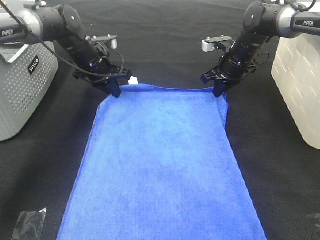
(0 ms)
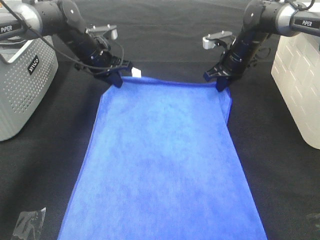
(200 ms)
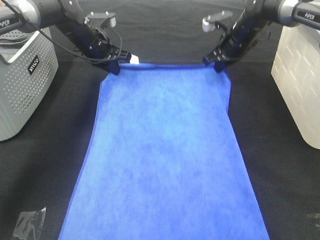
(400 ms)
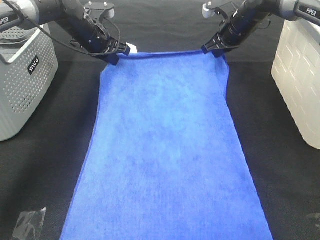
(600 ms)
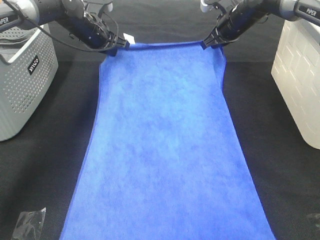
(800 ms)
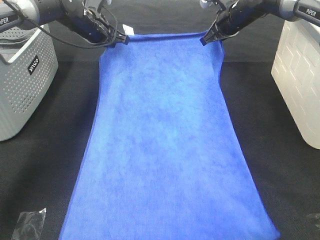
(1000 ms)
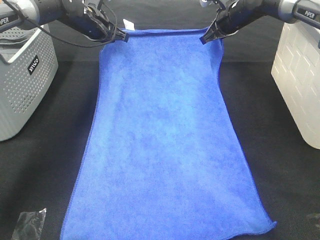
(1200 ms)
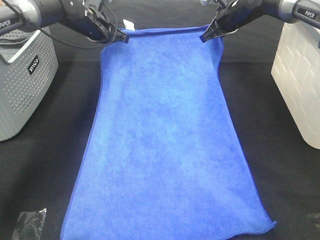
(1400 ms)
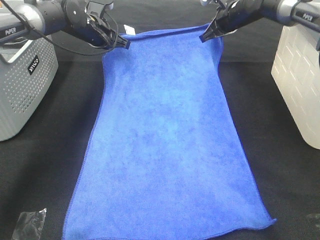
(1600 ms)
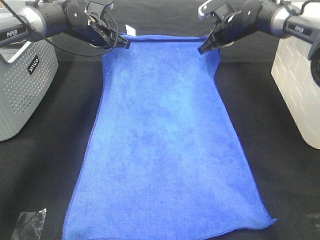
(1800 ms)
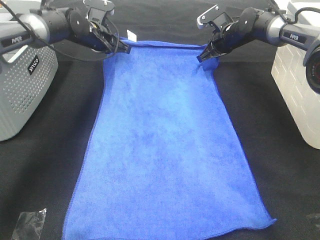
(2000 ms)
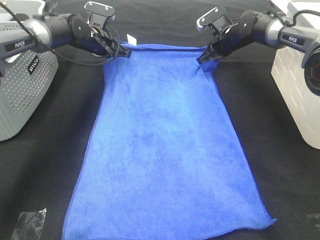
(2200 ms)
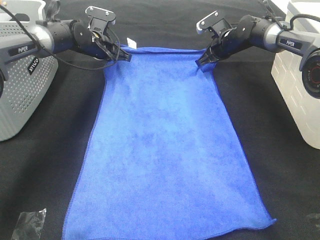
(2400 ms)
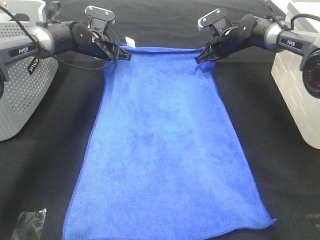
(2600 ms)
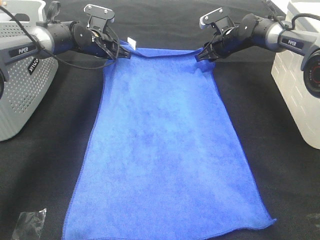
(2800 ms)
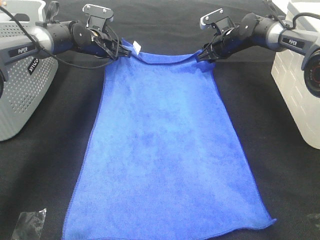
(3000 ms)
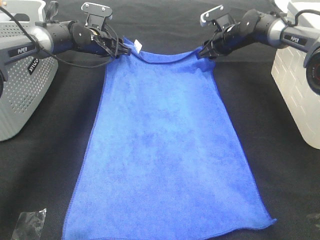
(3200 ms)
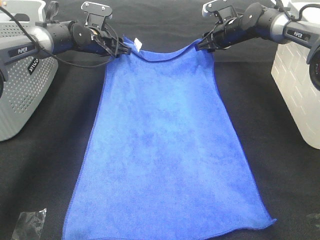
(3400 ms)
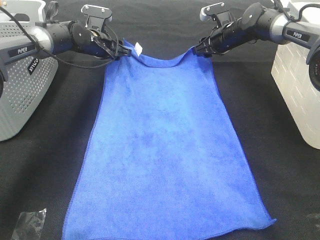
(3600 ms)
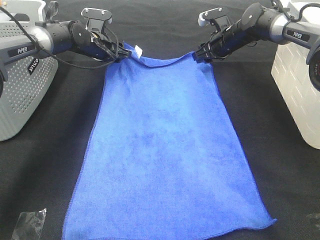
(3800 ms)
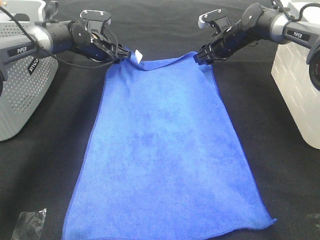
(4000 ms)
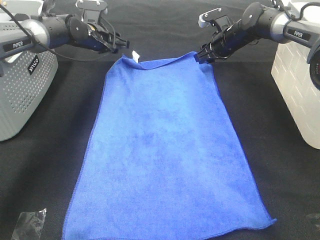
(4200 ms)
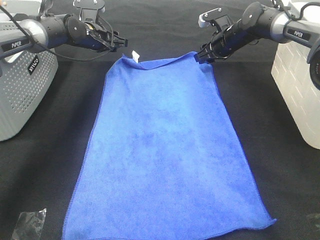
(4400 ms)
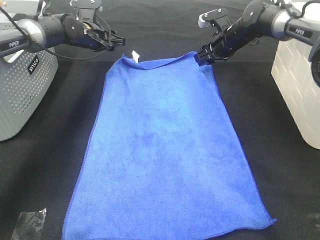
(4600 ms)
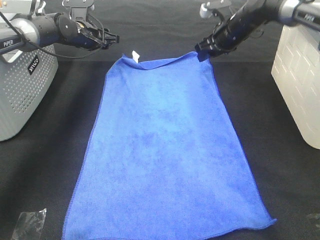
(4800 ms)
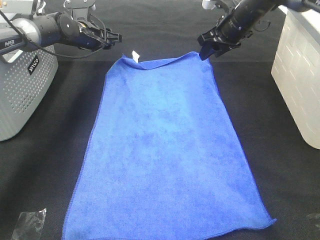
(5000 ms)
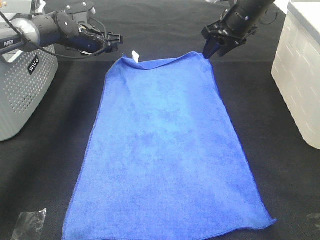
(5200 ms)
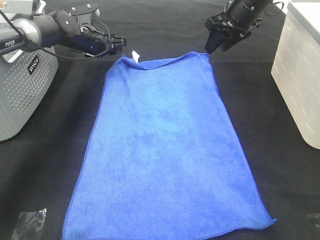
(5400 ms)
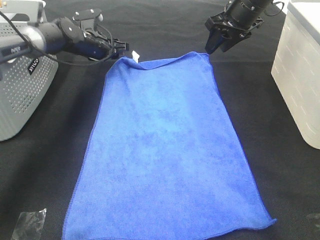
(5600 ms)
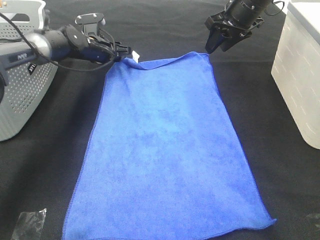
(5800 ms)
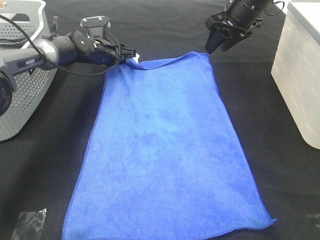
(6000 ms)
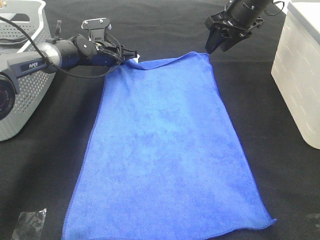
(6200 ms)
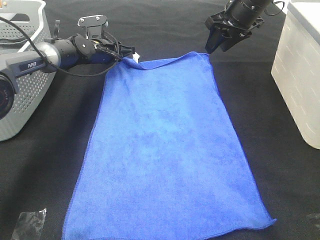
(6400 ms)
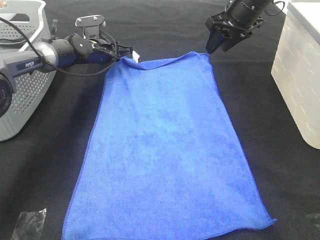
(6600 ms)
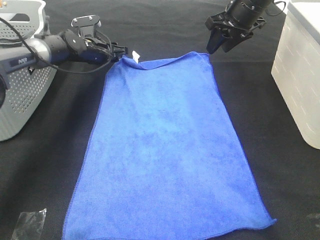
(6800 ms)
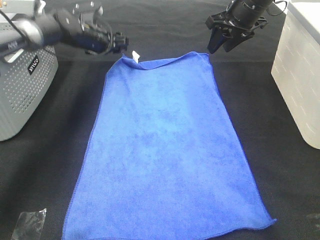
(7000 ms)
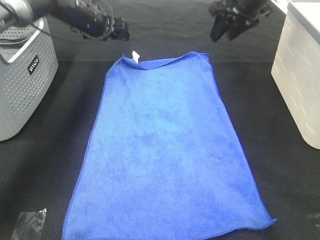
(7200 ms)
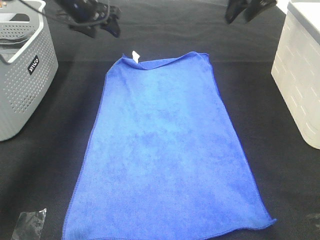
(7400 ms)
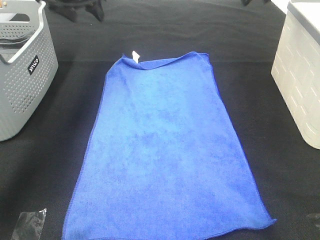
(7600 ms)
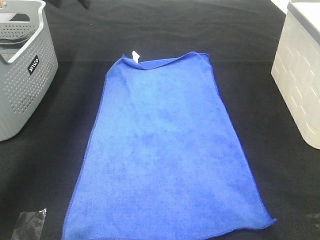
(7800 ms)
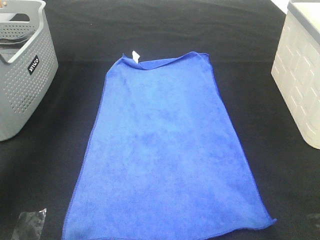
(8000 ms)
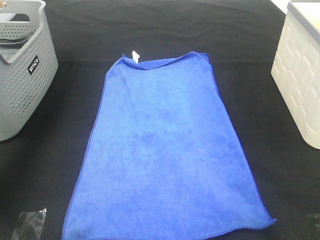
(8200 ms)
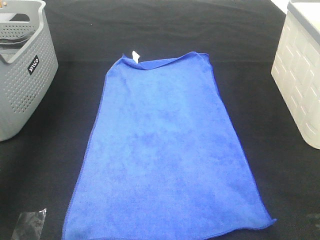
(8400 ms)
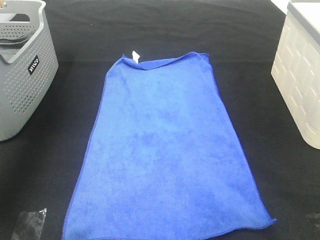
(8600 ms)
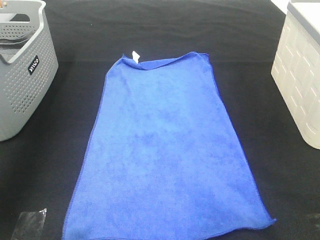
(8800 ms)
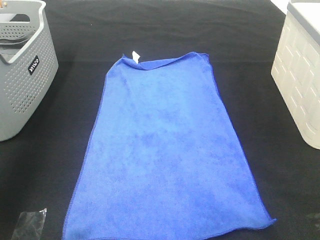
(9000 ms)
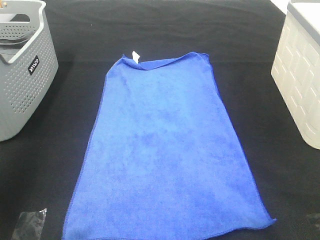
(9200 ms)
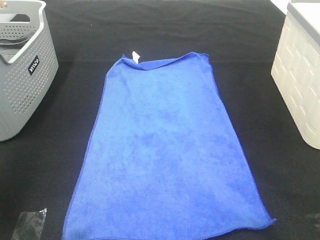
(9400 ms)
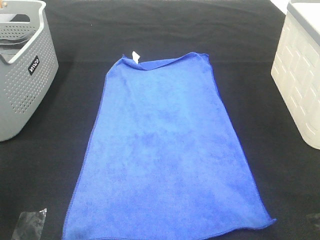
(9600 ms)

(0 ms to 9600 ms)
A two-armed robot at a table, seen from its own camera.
Task of the whole recording: Remove the towel and place it.
0 ms - 1600 ms: The left gripper travels forward by roughly 5 cm, while the right gripper heads upward and forward, covering approximately 10 cm.
1600 ms - 3200 ms: The left gripper opens up, while the right gripper moves downward, approximately 5 cm, and opens up.
3200 ms - 4800 ms: The right gripper moves approximately 5 cm.
4800 ms - 6400 ms: The left gripper moves some 5 cm. Meanwhile the right gripper goes some 5 cm upward.
6400 ms - 8000 ms: The left gripper is displaced upward and to the left by about 30 cm. Meanwhile the right gripper travels upward and to the right by roughly 20 cm.
8000 ms - 9600 ms: Both grippers move backward, some 50 cm.

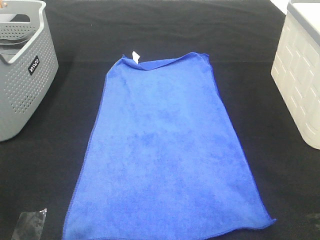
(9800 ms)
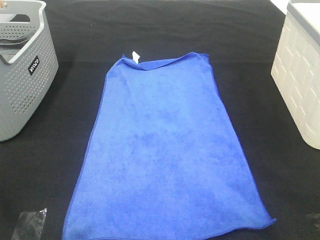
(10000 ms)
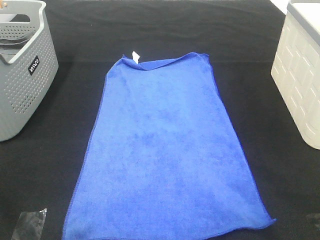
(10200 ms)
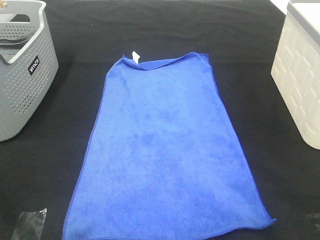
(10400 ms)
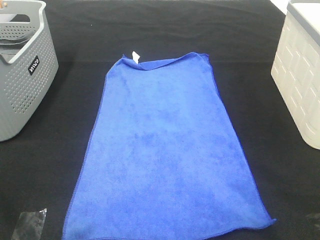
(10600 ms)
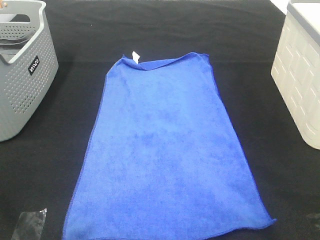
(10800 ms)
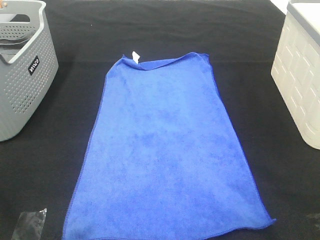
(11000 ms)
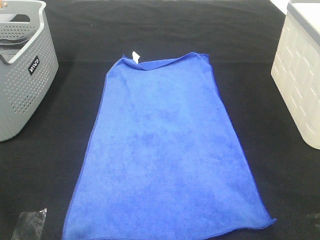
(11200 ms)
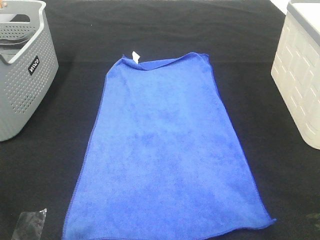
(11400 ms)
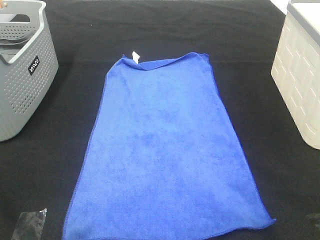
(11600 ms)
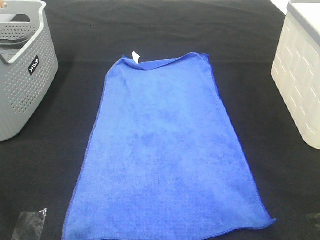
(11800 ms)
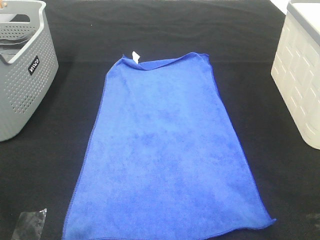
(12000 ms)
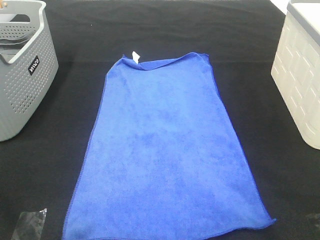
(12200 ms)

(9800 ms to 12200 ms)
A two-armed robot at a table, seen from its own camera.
Task of the whole recording: Remove the towel and place it.
11000 ms - 12200 ms: The two grippers keep their place.

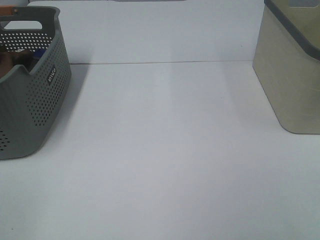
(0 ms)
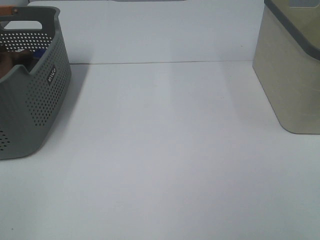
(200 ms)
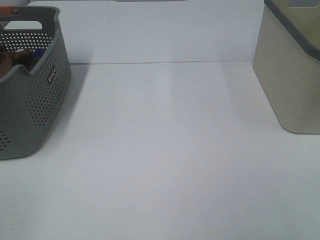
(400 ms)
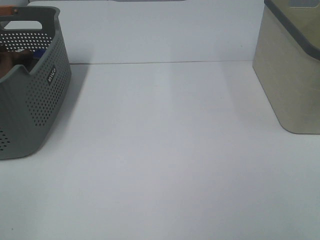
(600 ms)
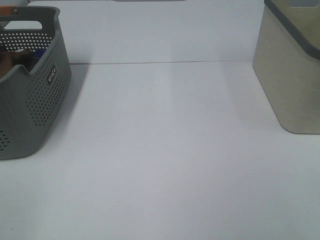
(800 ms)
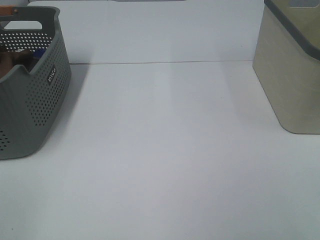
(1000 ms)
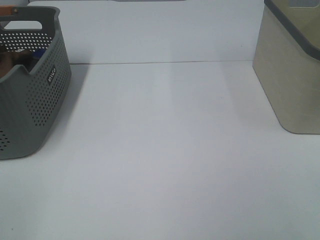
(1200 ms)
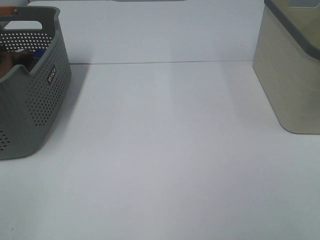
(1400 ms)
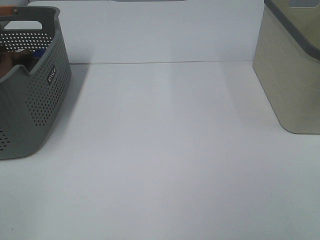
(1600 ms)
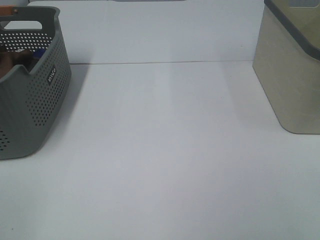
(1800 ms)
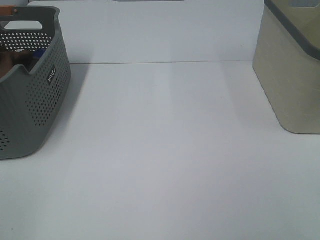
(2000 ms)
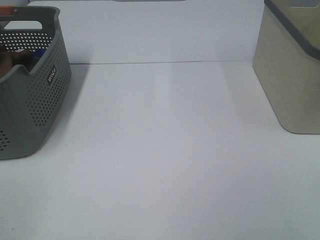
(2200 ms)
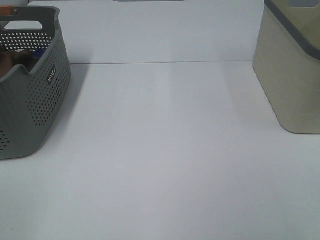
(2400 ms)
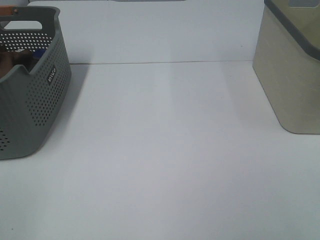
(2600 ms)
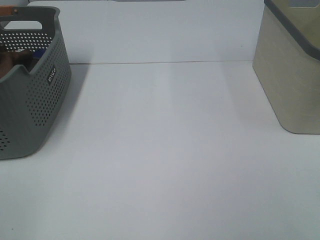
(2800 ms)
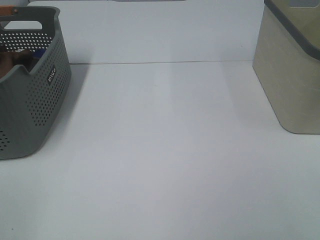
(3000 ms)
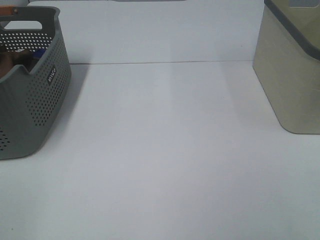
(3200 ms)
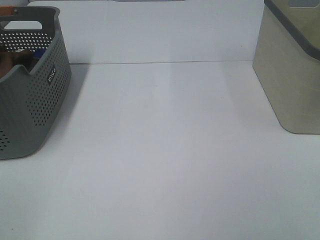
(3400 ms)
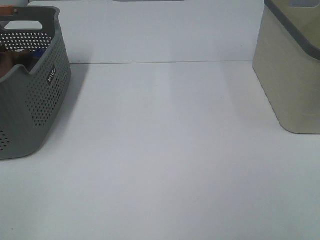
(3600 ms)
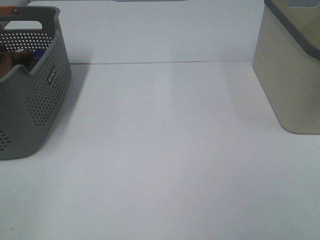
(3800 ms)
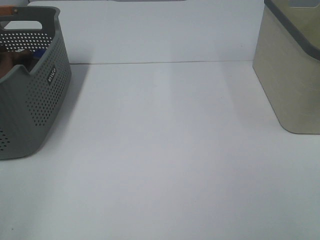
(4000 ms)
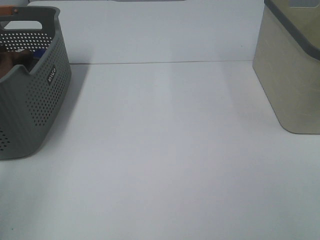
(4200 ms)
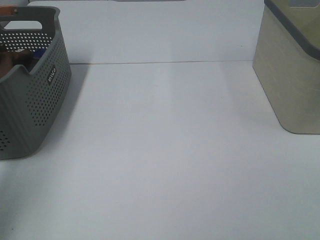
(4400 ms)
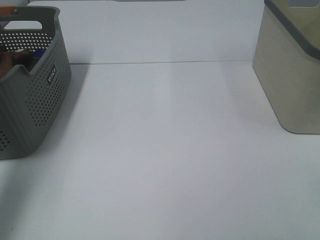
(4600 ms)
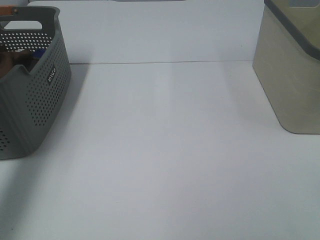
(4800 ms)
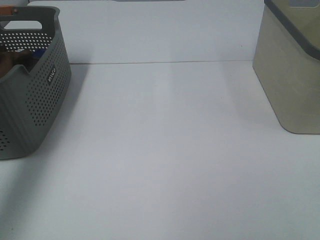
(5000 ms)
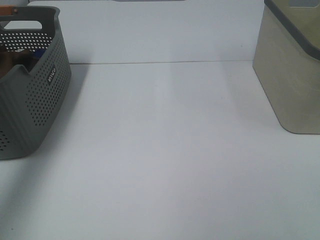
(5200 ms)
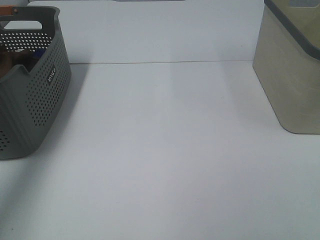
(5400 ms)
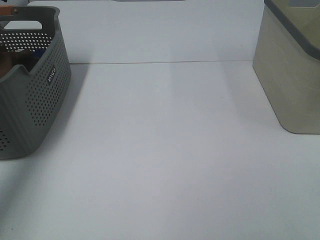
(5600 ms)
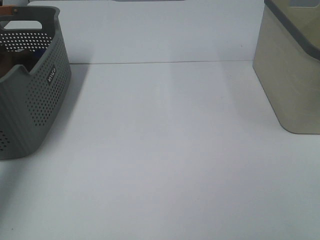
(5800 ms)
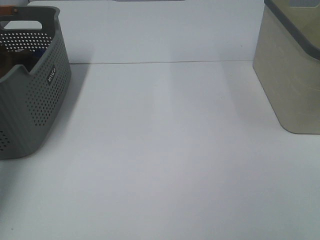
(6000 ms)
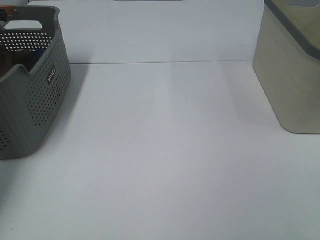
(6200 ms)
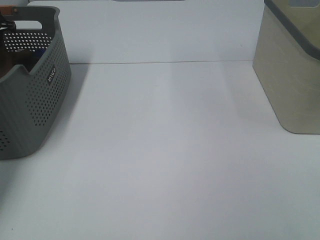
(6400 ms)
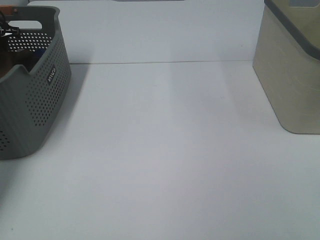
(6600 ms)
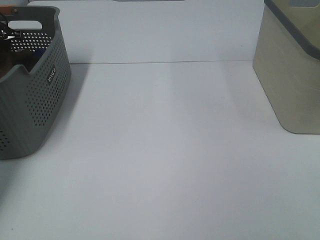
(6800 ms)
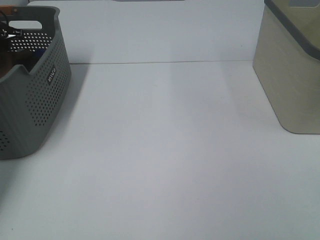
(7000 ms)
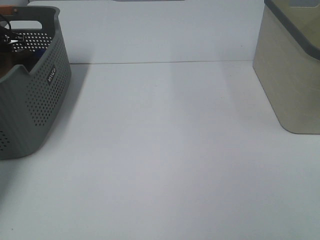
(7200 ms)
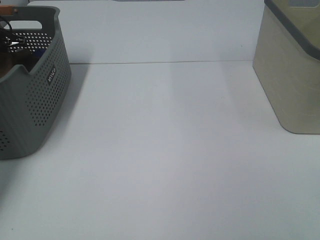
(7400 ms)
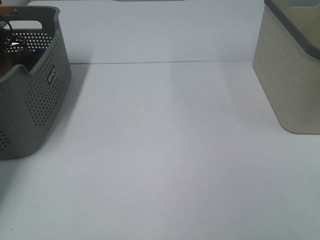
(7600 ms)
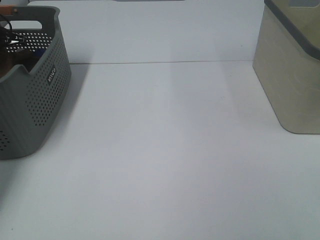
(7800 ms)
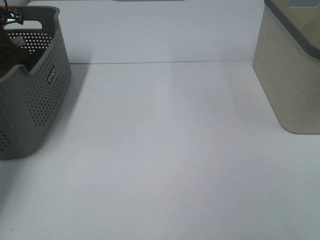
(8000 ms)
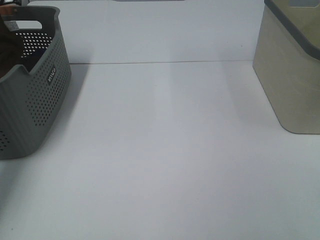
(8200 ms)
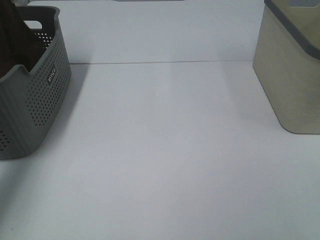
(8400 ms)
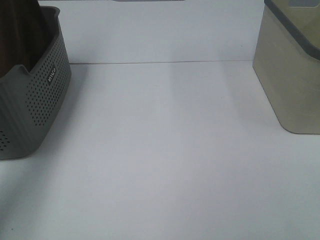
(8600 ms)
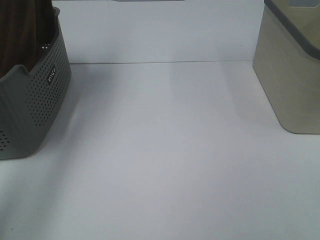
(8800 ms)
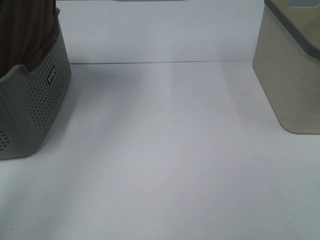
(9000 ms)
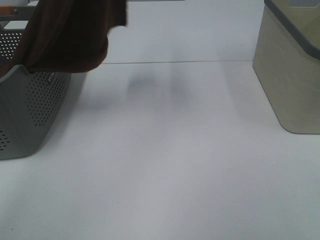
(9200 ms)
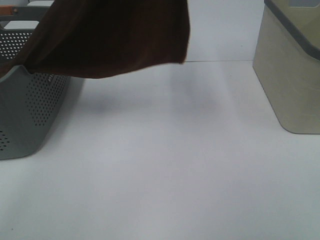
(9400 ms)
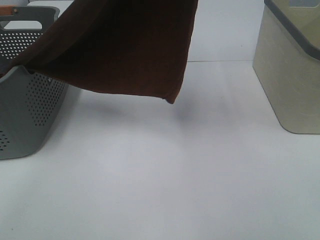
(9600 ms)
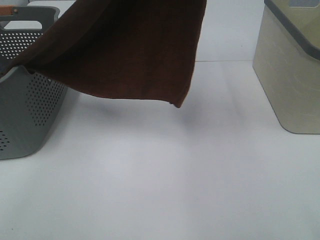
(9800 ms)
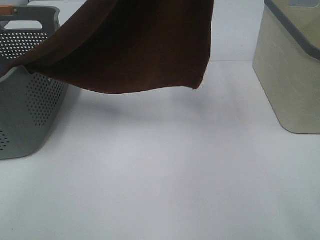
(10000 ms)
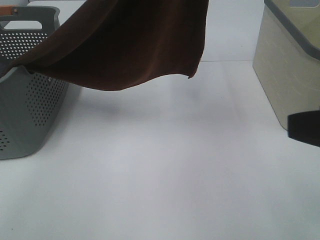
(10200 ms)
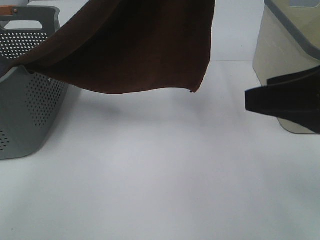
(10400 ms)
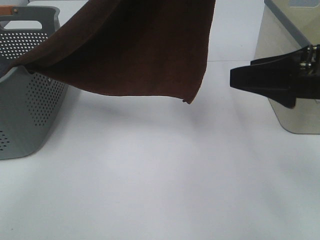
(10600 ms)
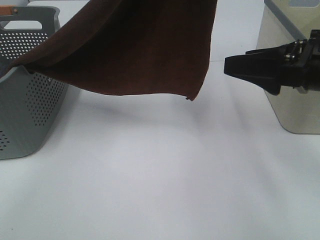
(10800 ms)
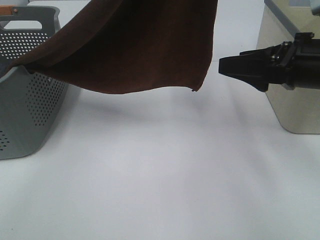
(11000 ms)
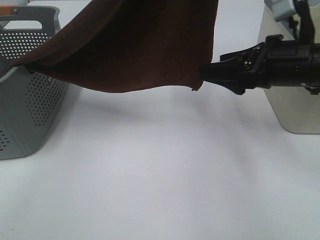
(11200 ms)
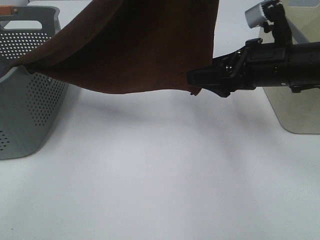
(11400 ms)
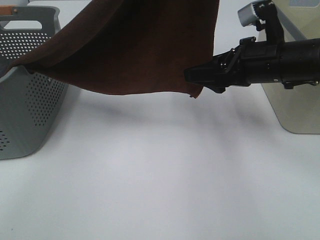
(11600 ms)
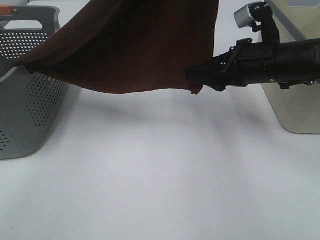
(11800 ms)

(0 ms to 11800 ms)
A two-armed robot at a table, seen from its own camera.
Task of the whole recording: Remove the towel and place it.
Step, 8600 ms - 11600 ms: Right hand: grab a corner of the brown towel and straighten it.
0 ms - 3000 ms: Both grippers stay about where they are.
3000 ms - 4400 ms: The left gripper goes approximately 15 cm forward and upward.
4400 ms - 6000 ms: The left gripper heads forward, covering approximately 35 cm.
7400 ms - 8800 ms: The left gripper heads upward and to the right, covering about 35 cm, and closes.
8800 ms - 10400 ms: The left gripper heads to the right and backward, covering about 25 cm. The right gripper moves forward, about 15 cm.
10400 ms - 11800 ms: The right gripper is displaced forward and downward by roughly 15 cm.
